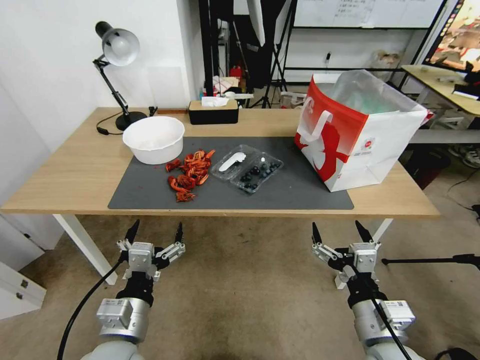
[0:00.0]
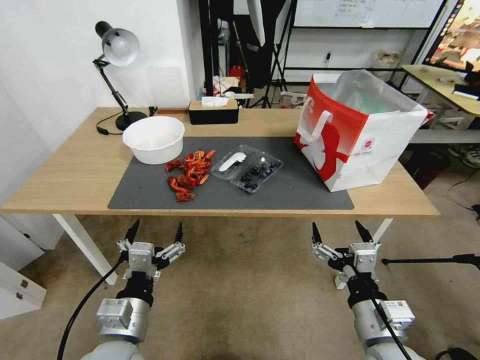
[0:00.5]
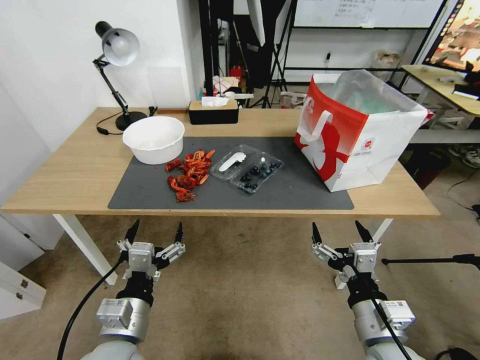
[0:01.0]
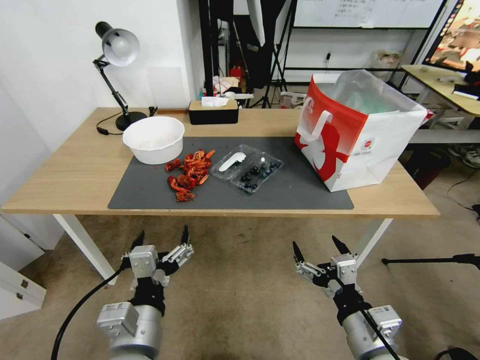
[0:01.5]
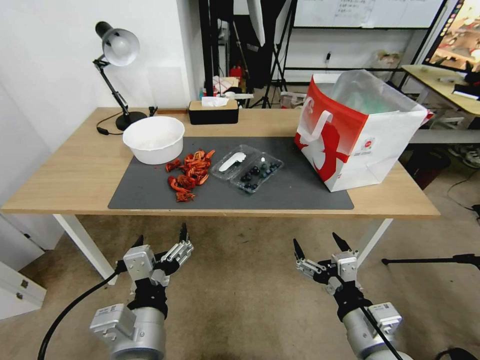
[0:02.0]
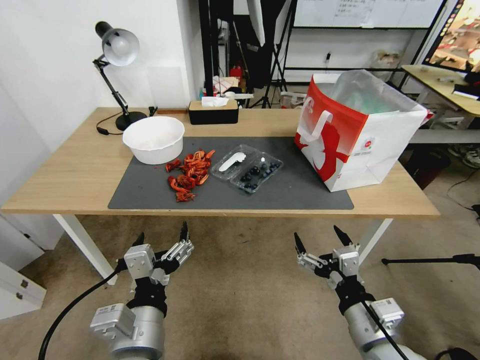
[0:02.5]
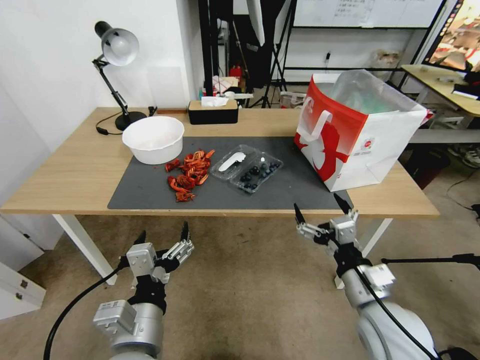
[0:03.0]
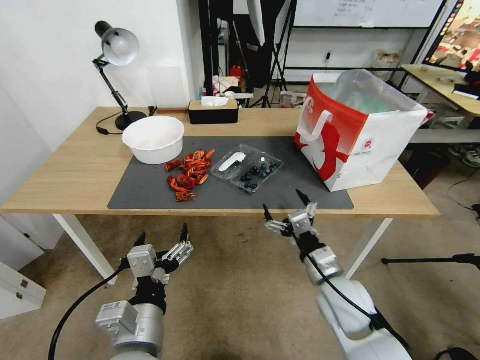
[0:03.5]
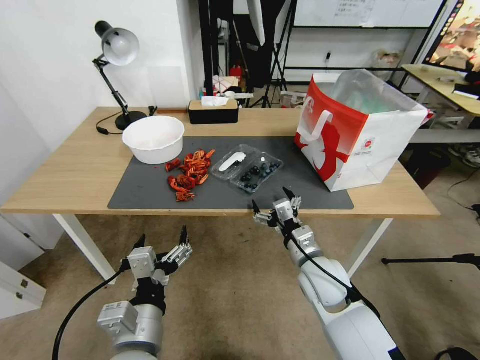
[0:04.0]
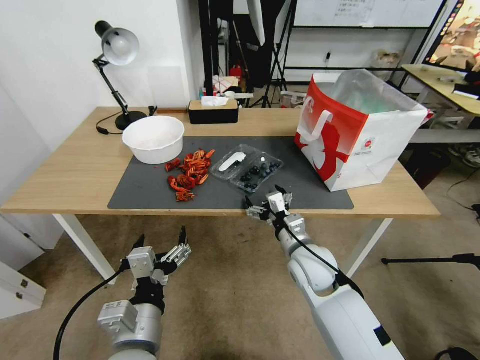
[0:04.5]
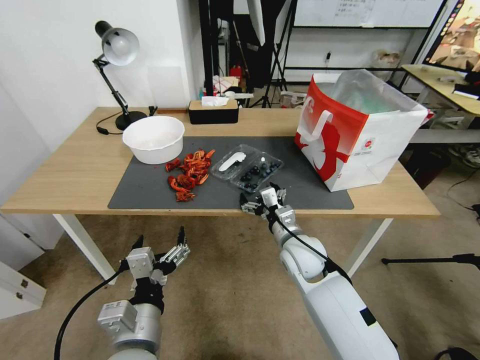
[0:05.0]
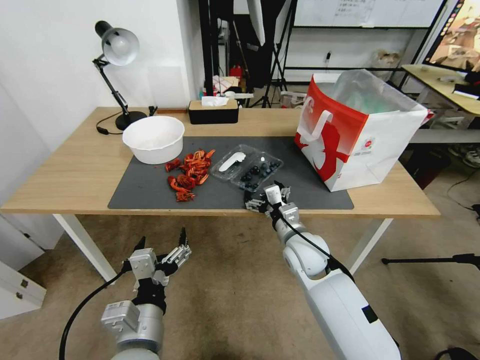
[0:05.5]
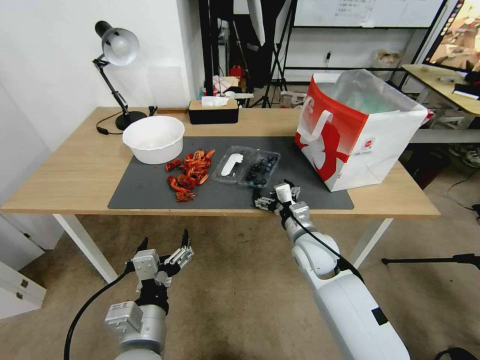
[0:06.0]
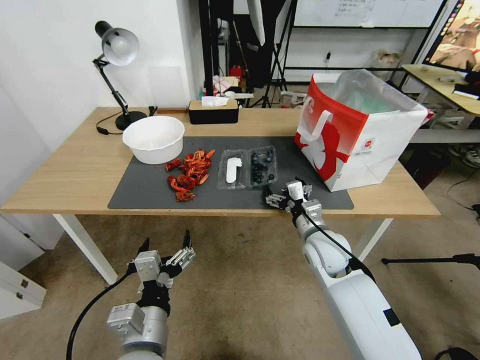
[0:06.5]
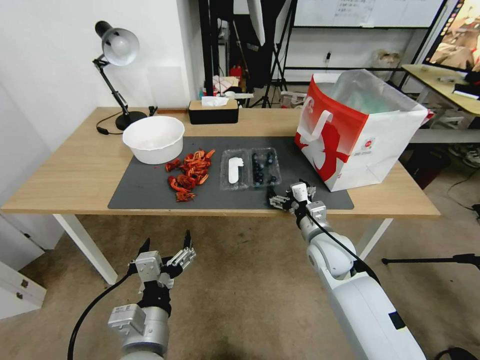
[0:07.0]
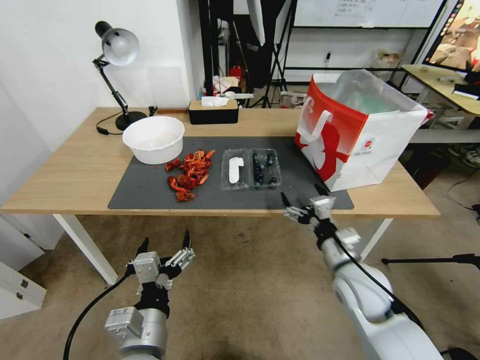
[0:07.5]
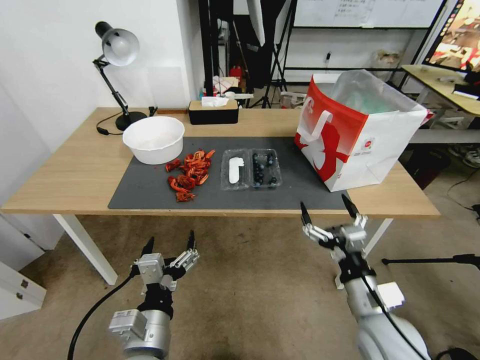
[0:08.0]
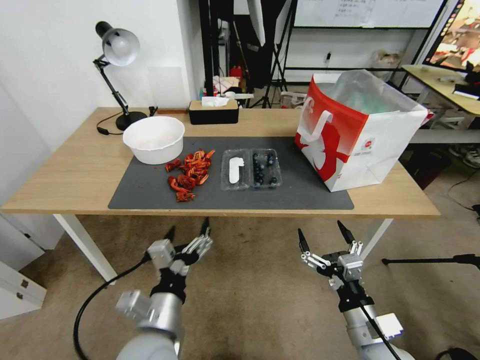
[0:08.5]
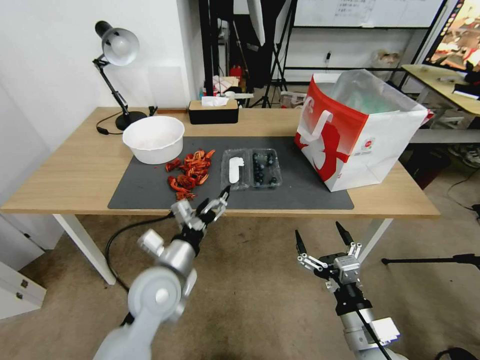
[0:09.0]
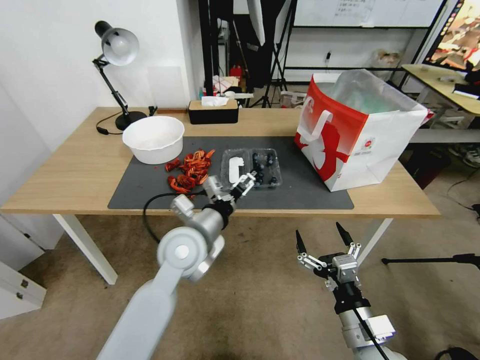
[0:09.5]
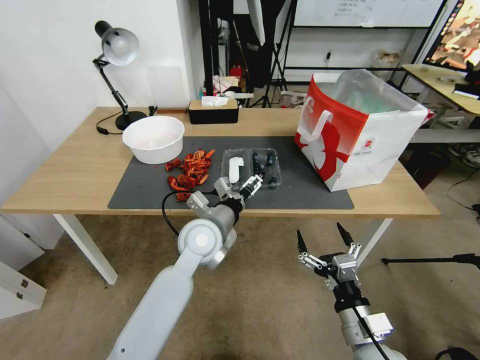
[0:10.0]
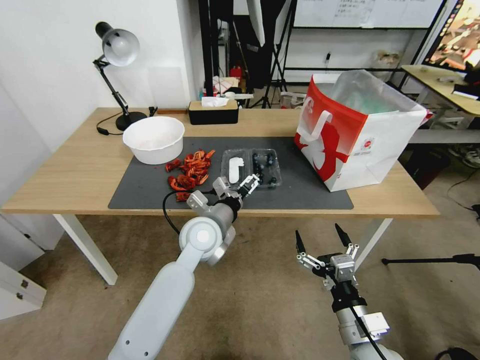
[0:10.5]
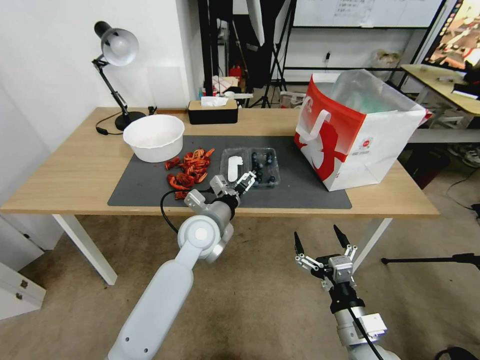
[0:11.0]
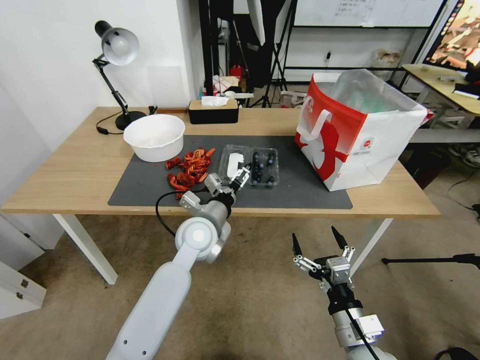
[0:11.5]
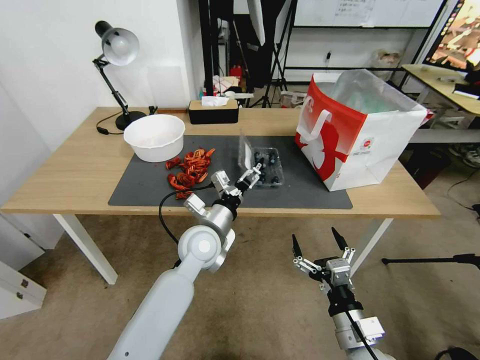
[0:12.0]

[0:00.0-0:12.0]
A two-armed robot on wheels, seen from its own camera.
Task of the whole recording: Close the takeout container lid, then place the container into the takeout bag.
0:02.0 to 0:04.0: The right gripper goes roughly 15 cm forward.
0:04.0 to 0:06.0: The right gripper shifts approximately 5 cm forward.
0:06.0 to 0:08.0: The right gripper goes approximately 20 cm backward and to the right.
0:08.0 to 0:10.0: The left gripper heads forward, covering some 25 cm.
0:10.0 to 0:12.0: The grippers make only small movements.

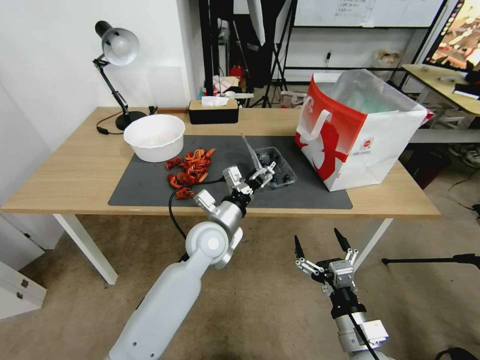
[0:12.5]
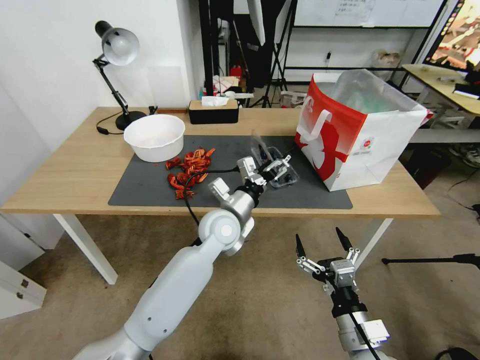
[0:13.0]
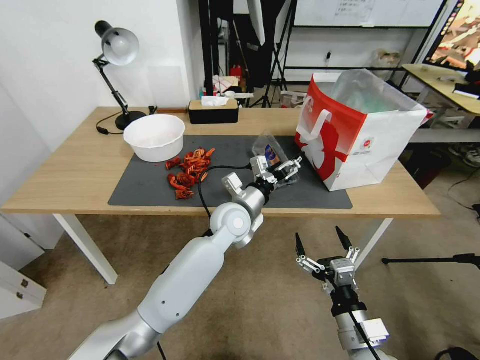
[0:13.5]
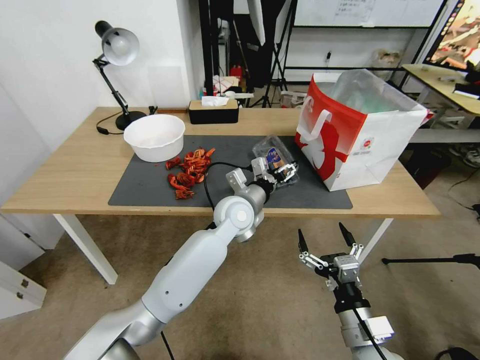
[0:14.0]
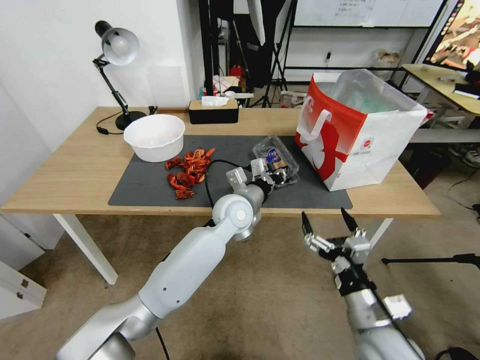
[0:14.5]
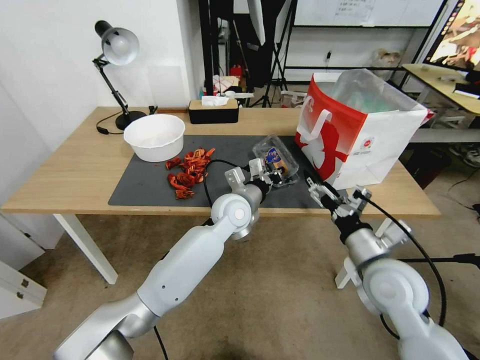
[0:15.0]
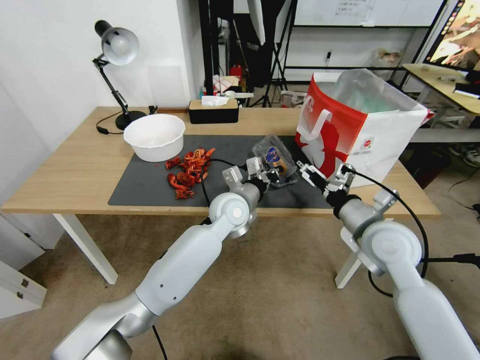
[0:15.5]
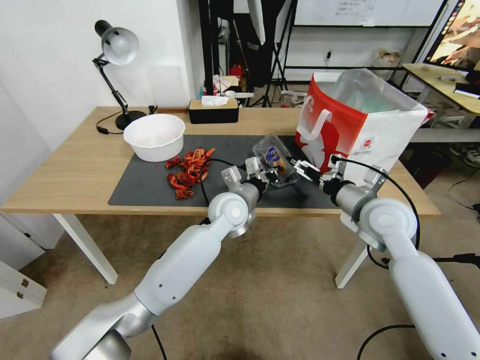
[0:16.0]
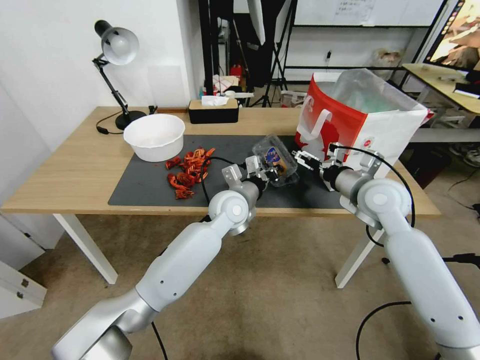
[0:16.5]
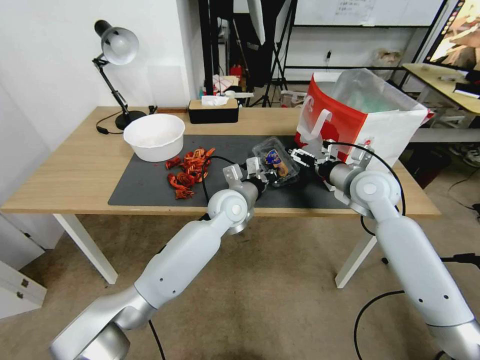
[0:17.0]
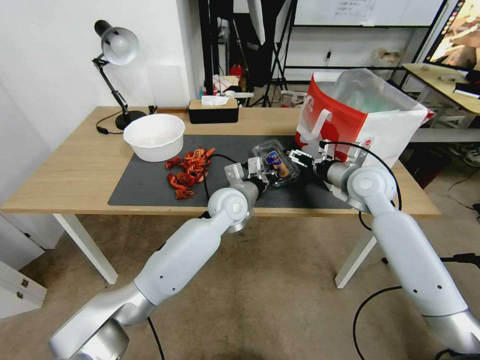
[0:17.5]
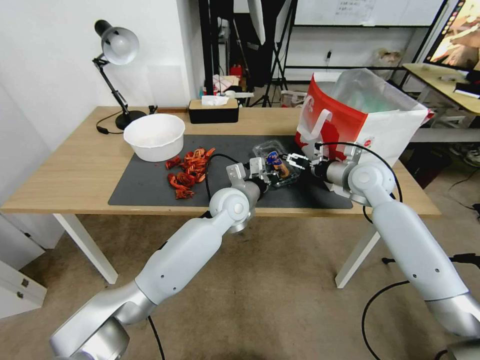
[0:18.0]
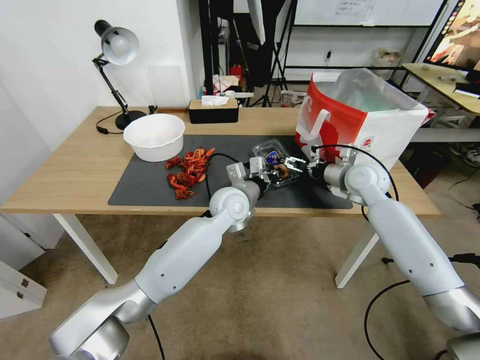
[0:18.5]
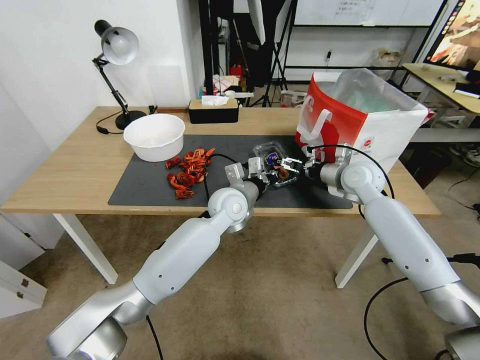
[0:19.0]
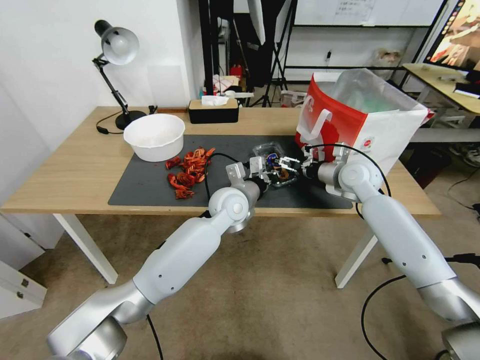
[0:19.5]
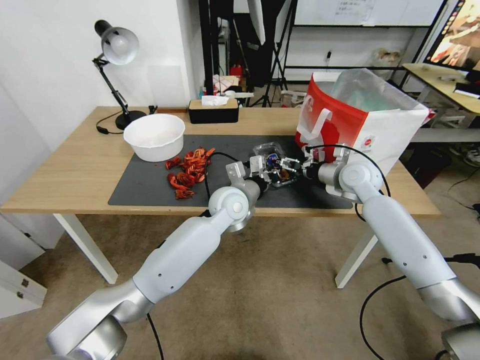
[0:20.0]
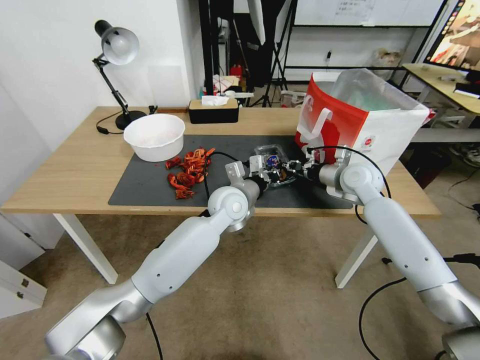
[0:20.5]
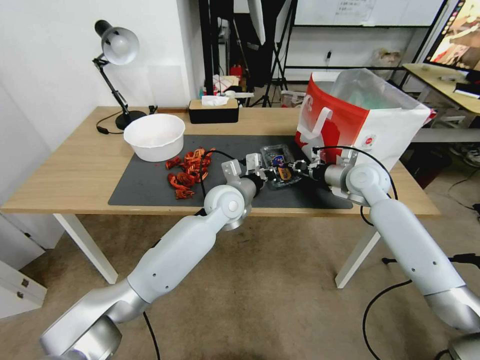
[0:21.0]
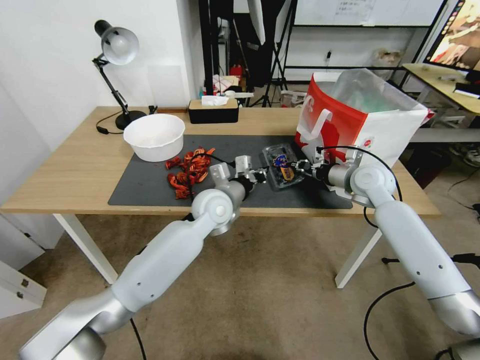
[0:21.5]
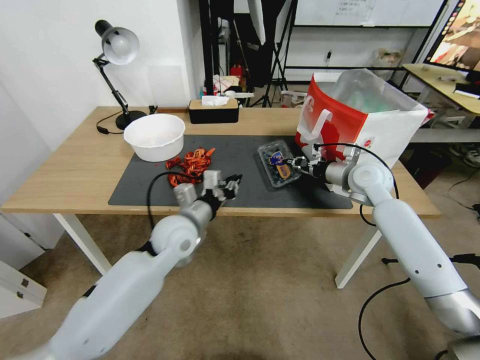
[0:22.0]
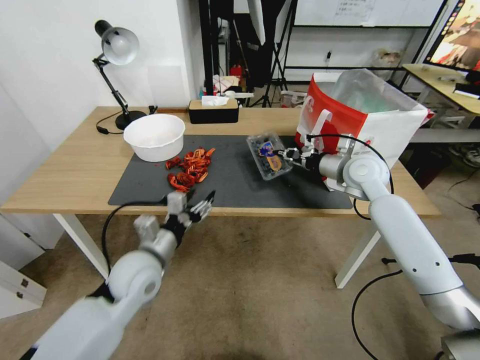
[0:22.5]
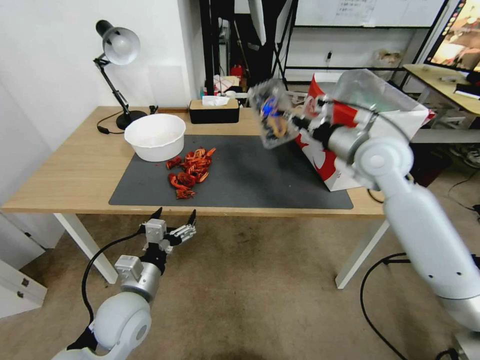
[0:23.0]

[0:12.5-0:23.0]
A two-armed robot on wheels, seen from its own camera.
Task of the whole recording: Close the takeout container lid, then place the container into the takeout bag.
0:12.5 to 0:14.5: The left gripper goes roughly 10 cm forward and to the right, and closes, while the right gripper shifts by about 5 cm.
0:14.5 to 0:16.5: The right gripper goes about 30 cm forward and upward.
0:16.5 to 0:19.0: The right gripper travels forward by roughly 10 cm.
0:19.0 to 0:21.0: The right gripper closes.
0:21.0 to 0:23.0: The left gripper travels backward and to the left by some 30 cm, and opens its fingers. Meanwhile the right gripper goes roughly 15 cm upward and backward.

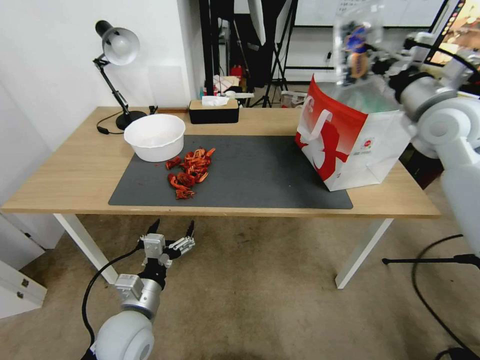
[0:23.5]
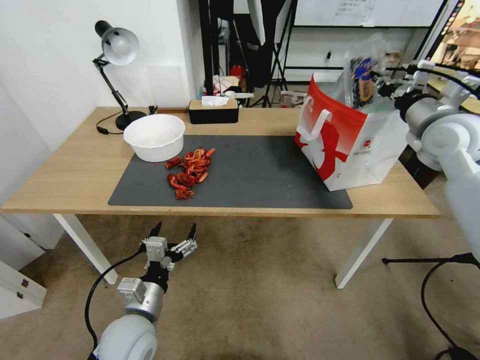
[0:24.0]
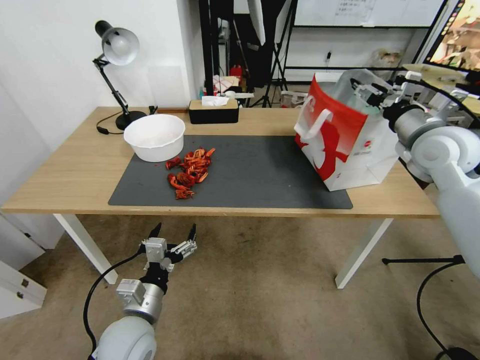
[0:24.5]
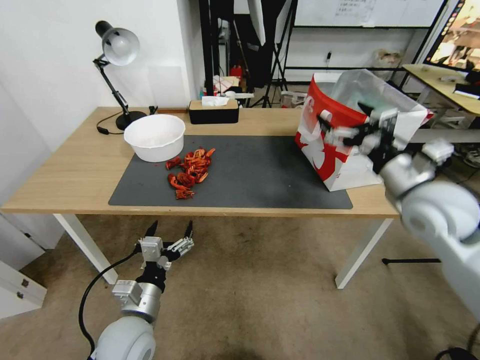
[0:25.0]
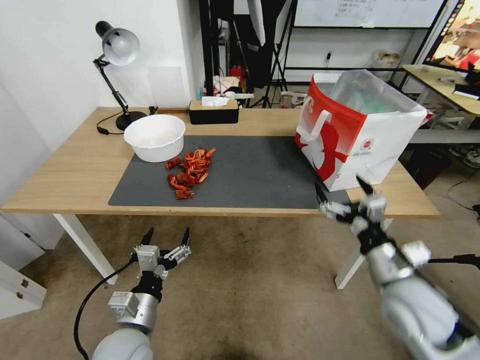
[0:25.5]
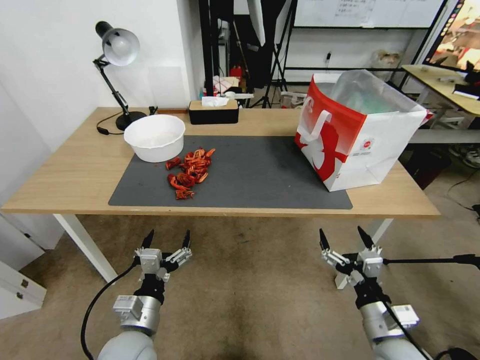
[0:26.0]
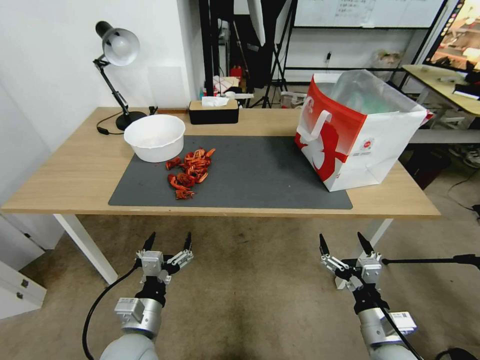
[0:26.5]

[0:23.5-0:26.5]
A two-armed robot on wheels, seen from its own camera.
Task of the whole recording: Close the takeout container lid, then place the container into the takeout bag.
0:23.5 to 0:25.0: The right gripper travels backward and downward by approximately 15 cm, and opens.
0:25.0 to 0:26.5: The right gripper shifts some 30 cm downward and backward.
